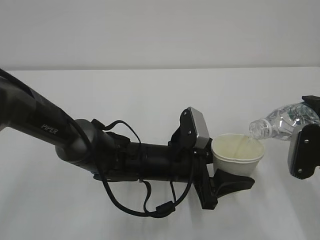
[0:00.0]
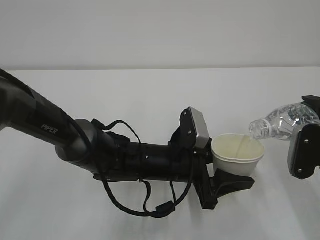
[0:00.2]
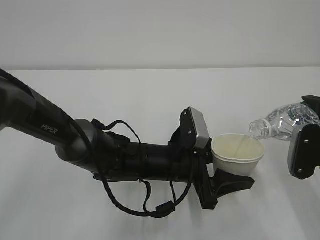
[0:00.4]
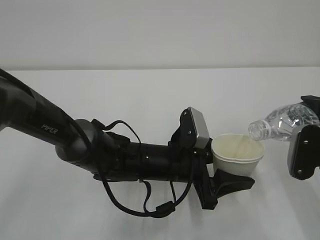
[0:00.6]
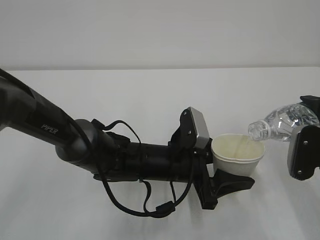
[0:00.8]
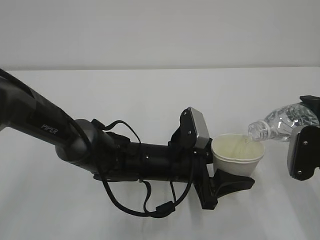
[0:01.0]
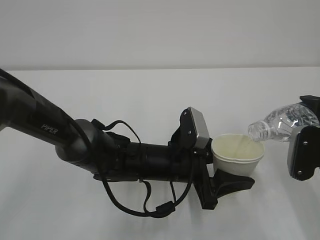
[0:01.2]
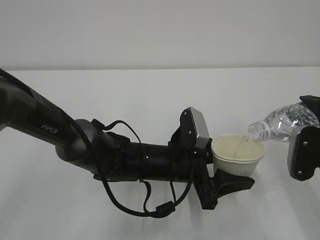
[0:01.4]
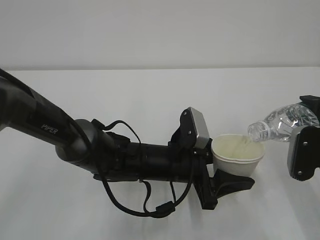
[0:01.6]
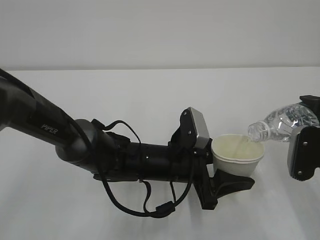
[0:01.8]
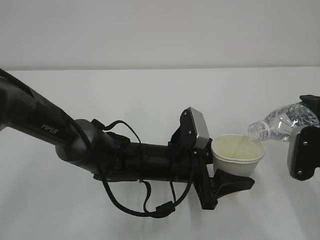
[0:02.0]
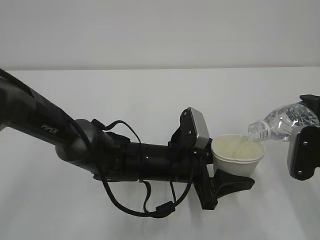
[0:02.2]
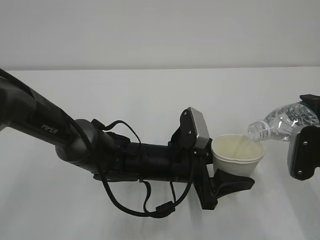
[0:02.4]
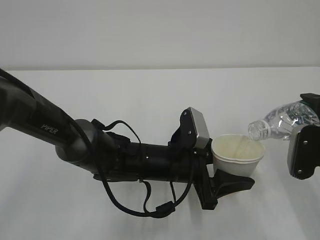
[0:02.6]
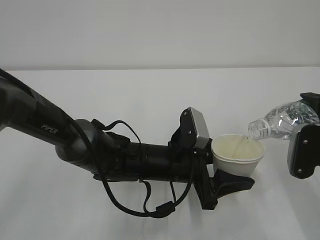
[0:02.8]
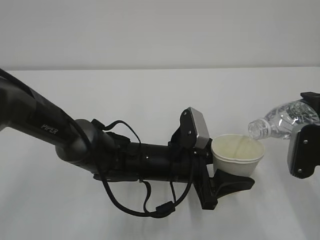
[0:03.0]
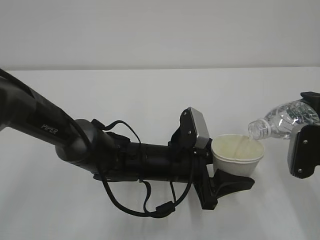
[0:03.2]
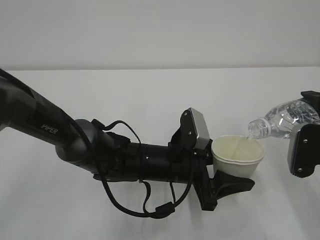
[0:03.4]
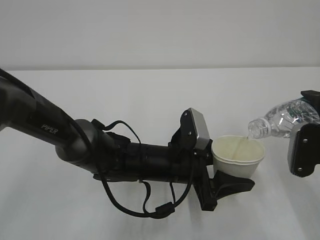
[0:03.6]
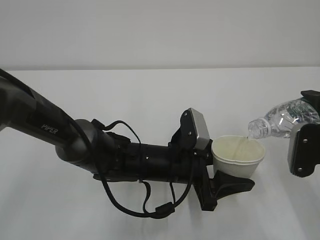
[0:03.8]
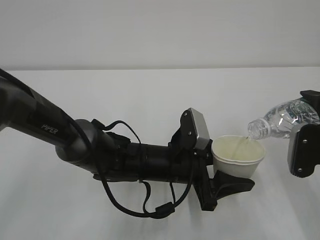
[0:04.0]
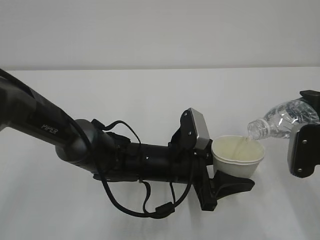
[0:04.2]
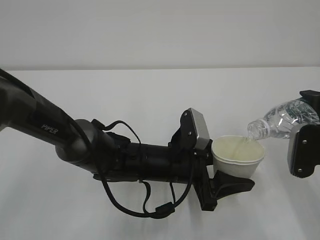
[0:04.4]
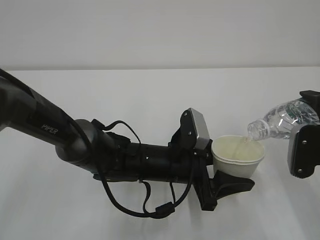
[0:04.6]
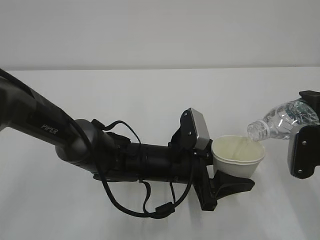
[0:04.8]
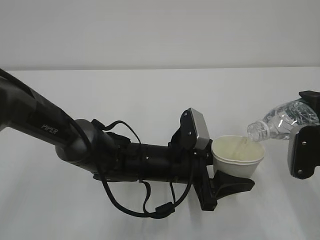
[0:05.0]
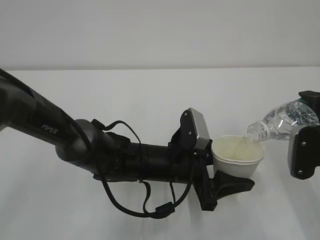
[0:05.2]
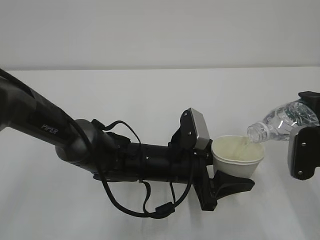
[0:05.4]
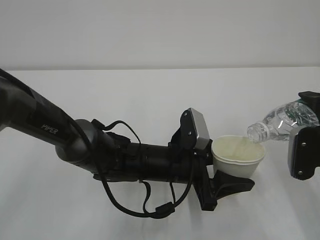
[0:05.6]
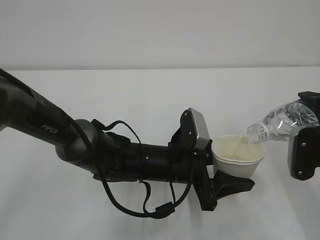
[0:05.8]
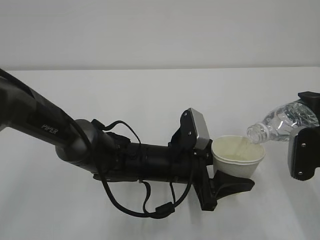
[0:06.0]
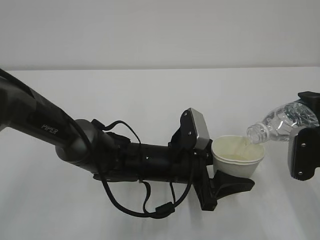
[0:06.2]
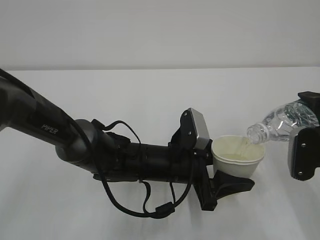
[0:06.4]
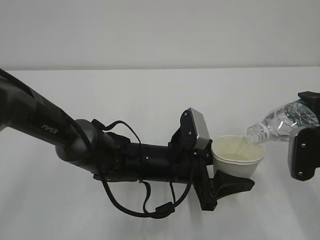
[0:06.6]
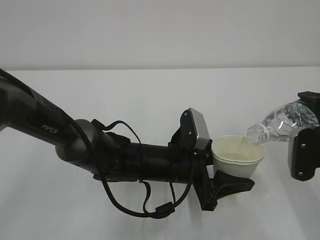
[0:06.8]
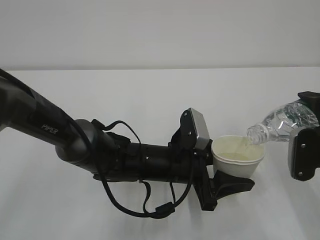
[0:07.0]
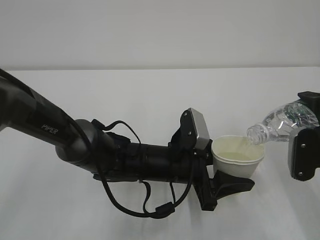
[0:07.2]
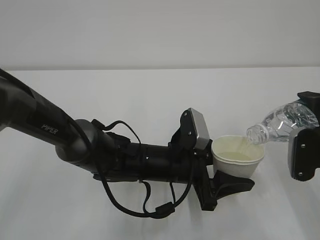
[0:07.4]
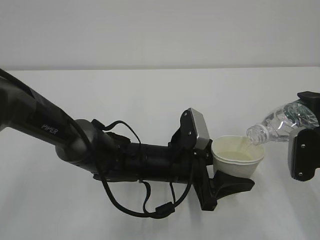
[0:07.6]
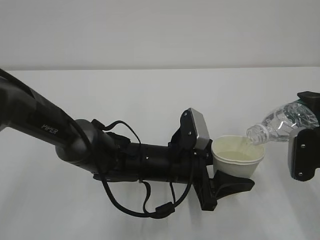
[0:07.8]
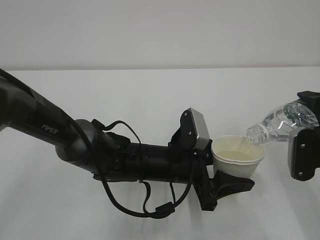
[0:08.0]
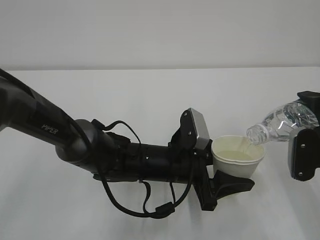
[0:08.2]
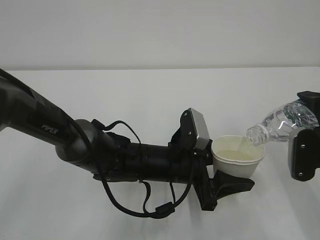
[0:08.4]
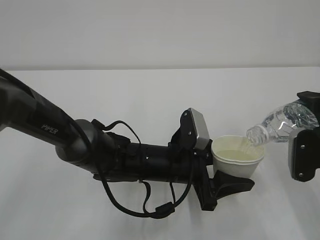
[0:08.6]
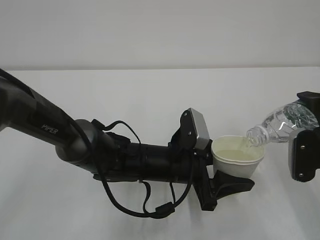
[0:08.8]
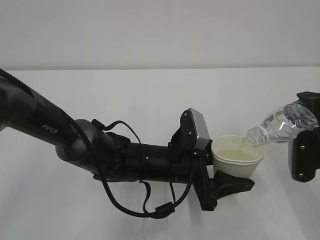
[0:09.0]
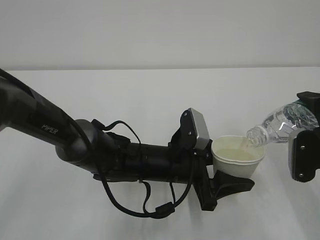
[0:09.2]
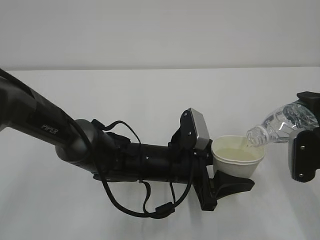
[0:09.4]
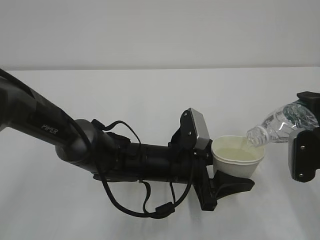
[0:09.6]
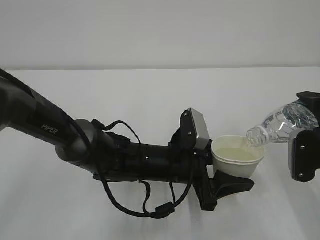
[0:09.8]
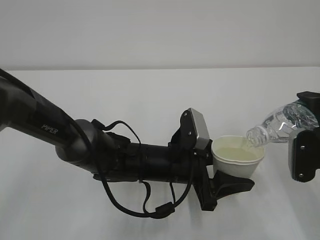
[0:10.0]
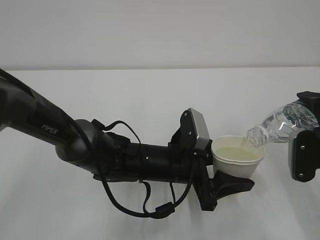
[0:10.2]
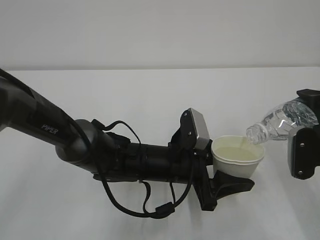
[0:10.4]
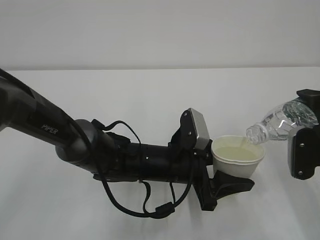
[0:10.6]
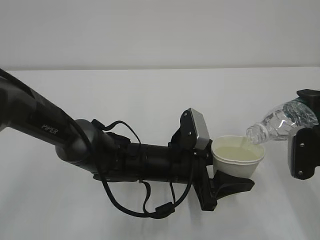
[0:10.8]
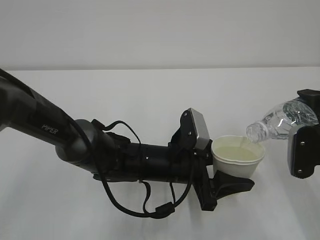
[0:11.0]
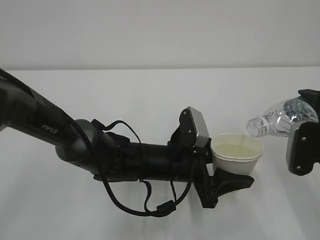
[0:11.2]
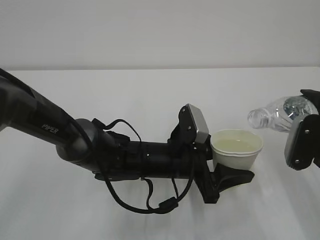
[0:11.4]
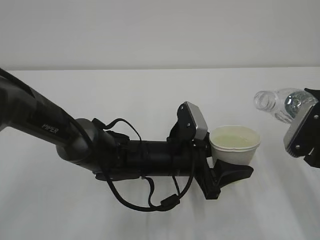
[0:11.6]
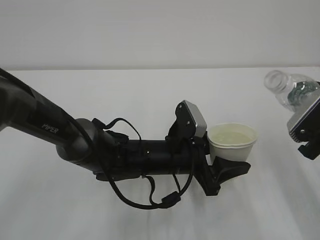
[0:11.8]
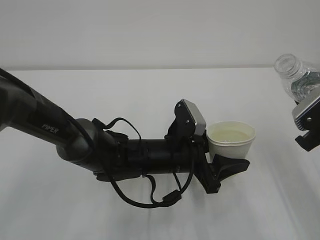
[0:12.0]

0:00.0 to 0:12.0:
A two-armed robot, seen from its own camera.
0:00.0 to 0:04.4: Both grippers stay about where they are.
0:04.4 to 0:07.6: Both grippers stay put.
0:07.6 to 0:10.4: The two grippers keep their place.

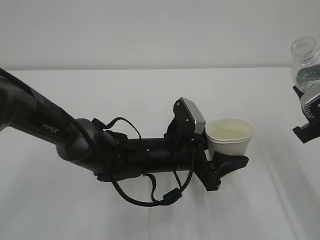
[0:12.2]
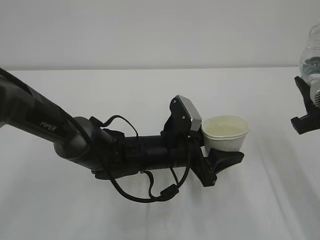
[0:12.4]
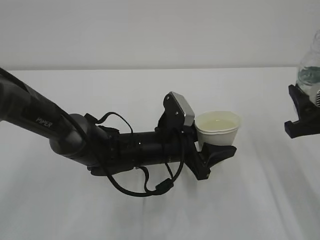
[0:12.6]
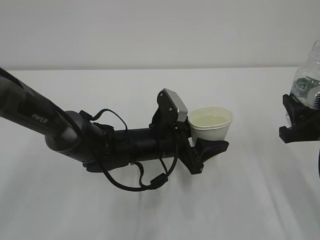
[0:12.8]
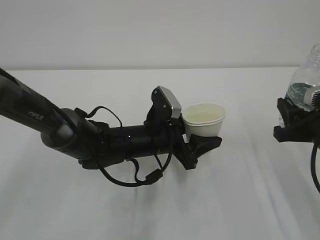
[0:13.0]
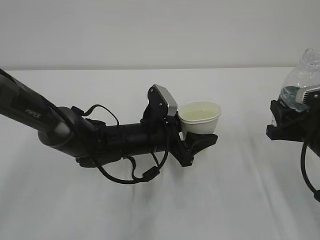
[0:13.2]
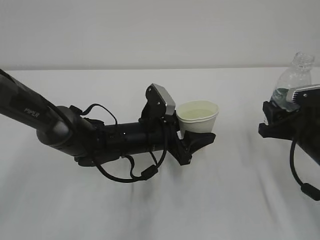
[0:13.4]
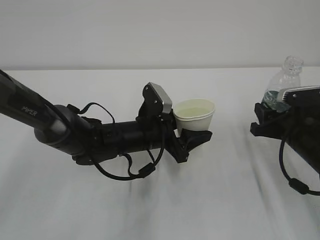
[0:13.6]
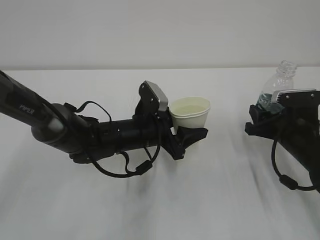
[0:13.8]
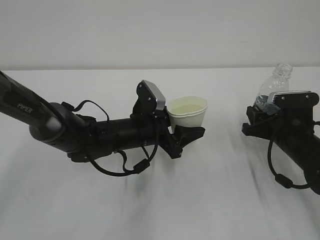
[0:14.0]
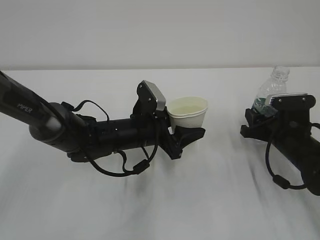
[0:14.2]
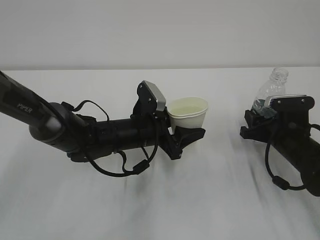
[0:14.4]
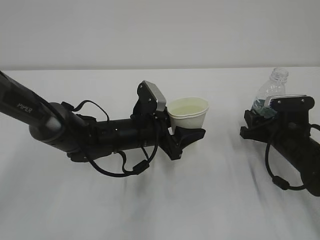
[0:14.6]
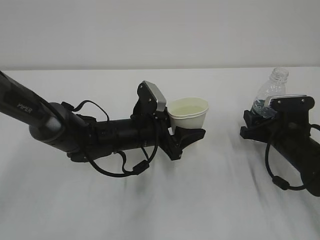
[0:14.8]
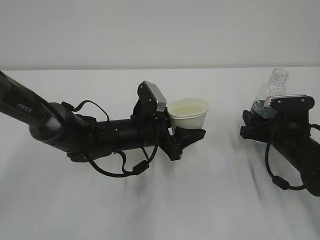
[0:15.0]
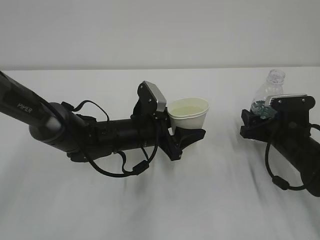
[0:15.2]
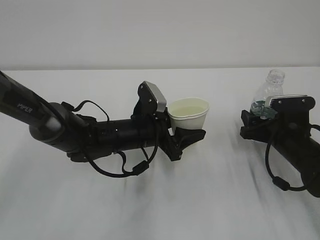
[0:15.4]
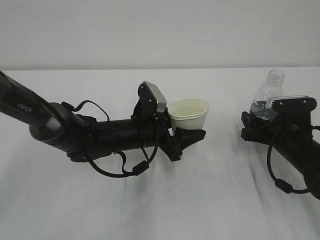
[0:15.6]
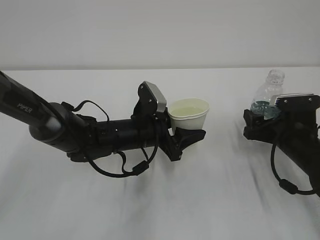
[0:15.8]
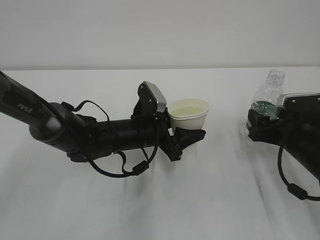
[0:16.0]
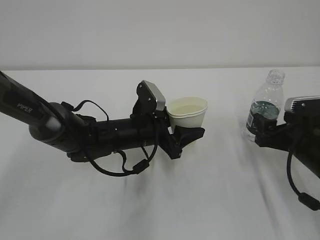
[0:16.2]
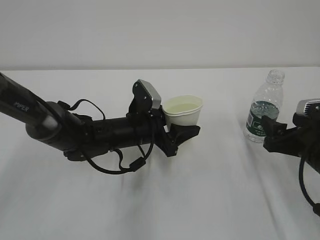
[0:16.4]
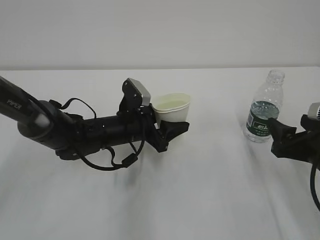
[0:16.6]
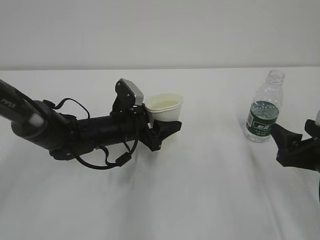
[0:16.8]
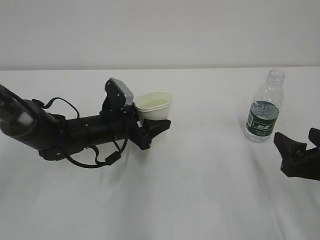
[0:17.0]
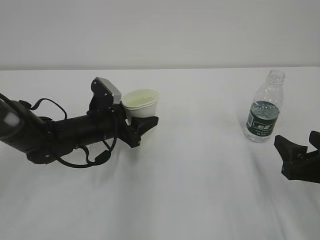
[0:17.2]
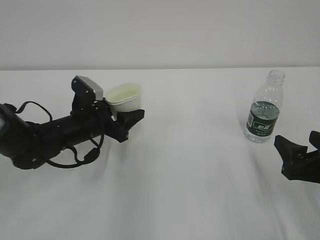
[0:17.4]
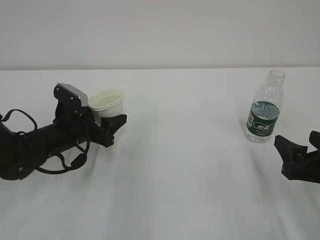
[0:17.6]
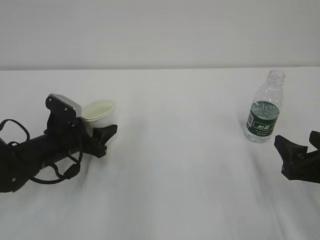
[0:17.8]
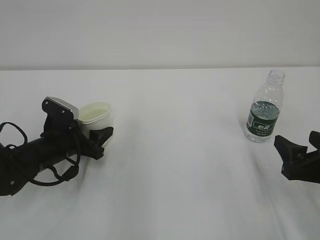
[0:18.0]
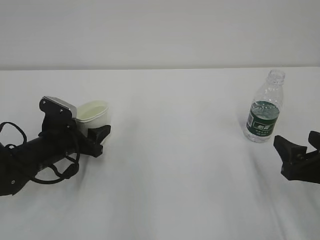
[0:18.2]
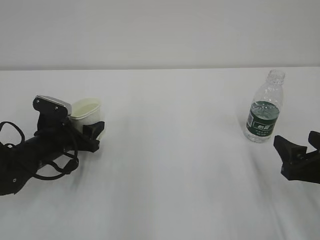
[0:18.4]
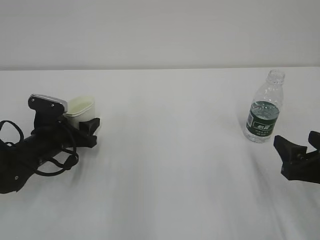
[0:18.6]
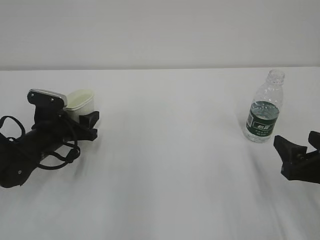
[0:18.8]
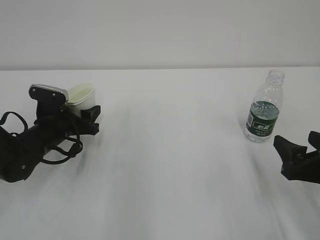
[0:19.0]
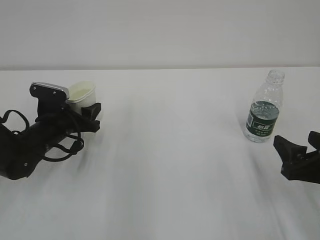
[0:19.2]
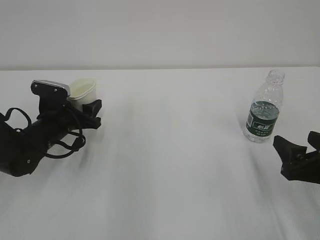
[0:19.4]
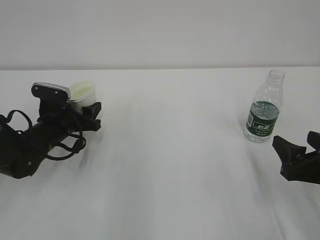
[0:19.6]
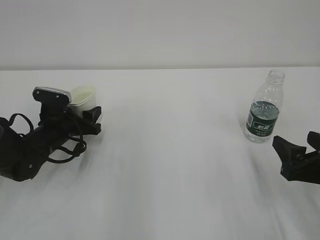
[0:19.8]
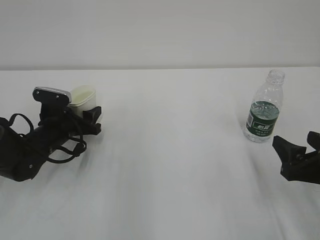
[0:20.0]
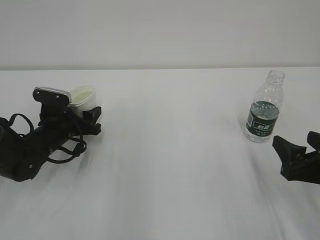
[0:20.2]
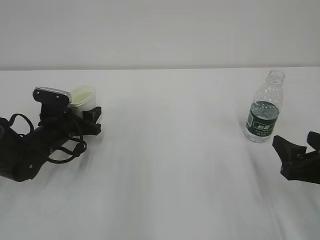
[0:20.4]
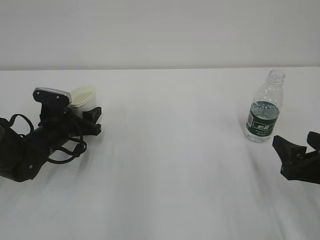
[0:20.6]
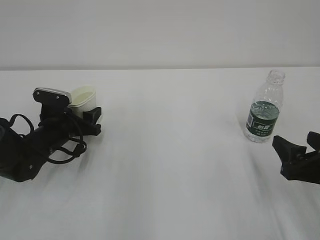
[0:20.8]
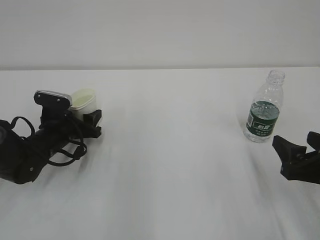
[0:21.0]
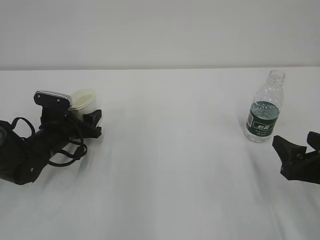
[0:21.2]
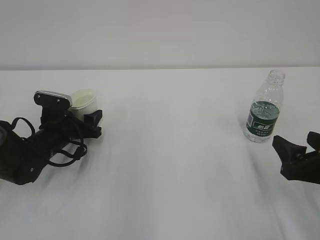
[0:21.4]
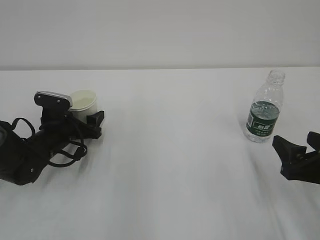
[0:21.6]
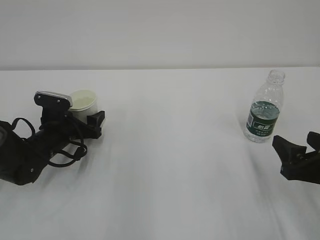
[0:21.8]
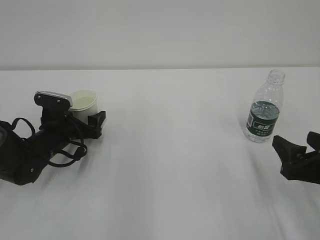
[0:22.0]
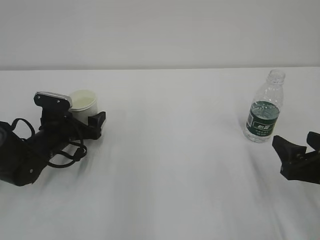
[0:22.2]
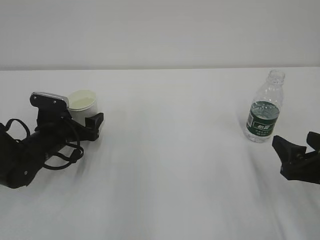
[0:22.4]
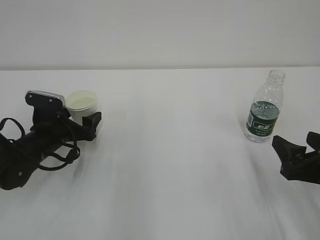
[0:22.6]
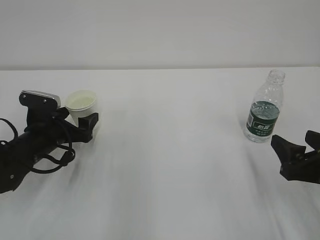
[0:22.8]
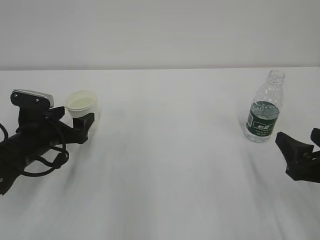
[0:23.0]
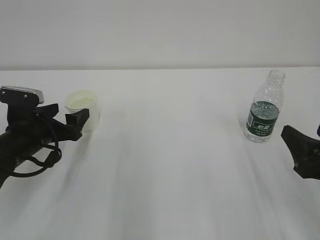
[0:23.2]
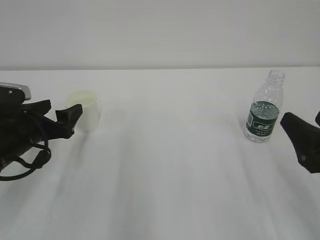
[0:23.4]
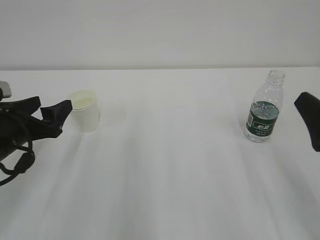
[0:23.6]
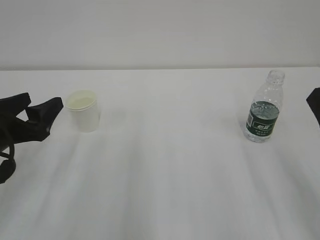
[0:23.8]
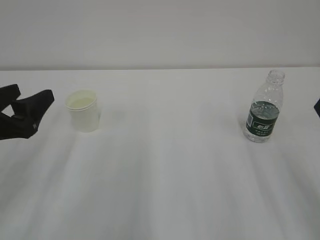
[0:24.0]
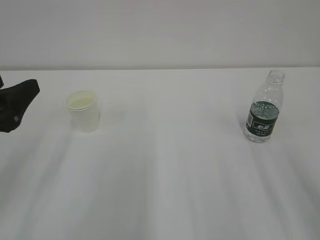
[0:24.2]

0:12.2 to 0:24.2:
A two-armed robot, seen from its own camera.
0:12.2 to 0:13.8: The right gripper shifts approximately 15 cm downward and forward, while the left gripper travels to the left and forward by some 10 cm.
0:13.8 to 0:15.2: The right gripper opens.
0:15.2 to 0:16.6: The right gripper moves backward and upward, roughly 10 cm.
0:16.6 to 0:18.2: The left gripper shifts about 15 cm to the left.
0:18.2 to 0:19.8: The grippers make only small movements.
0:19.8 to 0:21.2: Both grippers stay about where they are.
0:21.2 to 0:22.6: The left gripper opens its fingers.
0:22.6 to 0:24.2: The left gripper travels upward and backward by roughly 20 cm. The right gripper shifts some 10 cm upward and backward.
